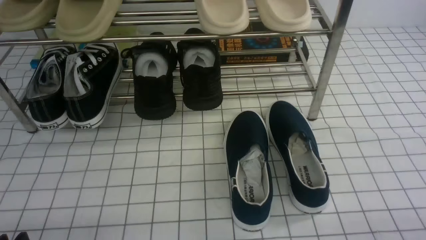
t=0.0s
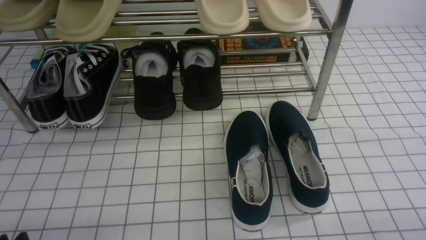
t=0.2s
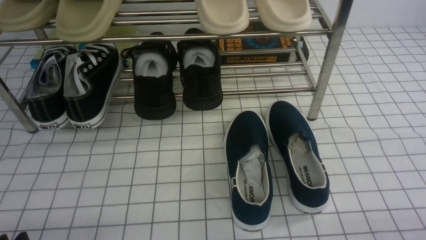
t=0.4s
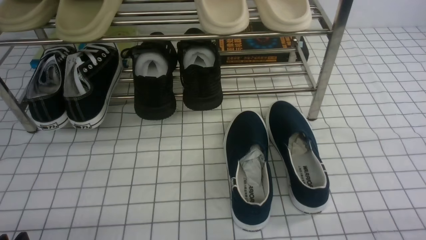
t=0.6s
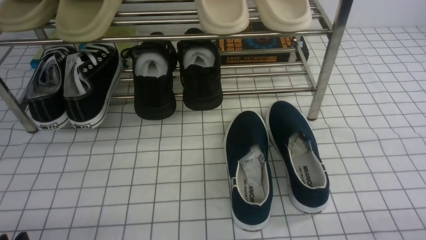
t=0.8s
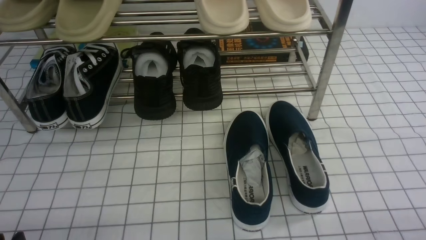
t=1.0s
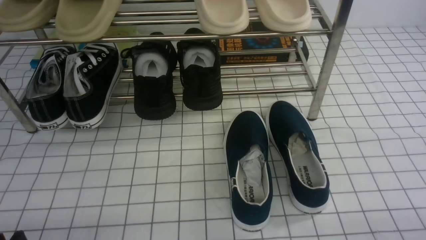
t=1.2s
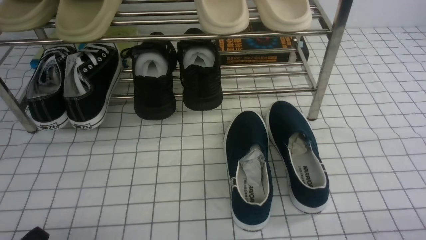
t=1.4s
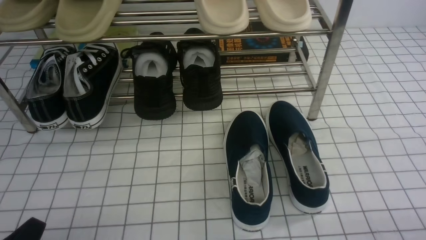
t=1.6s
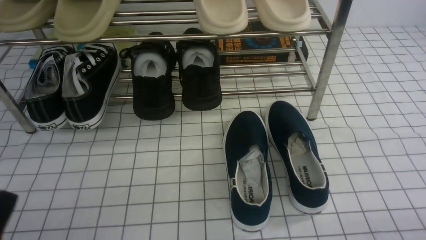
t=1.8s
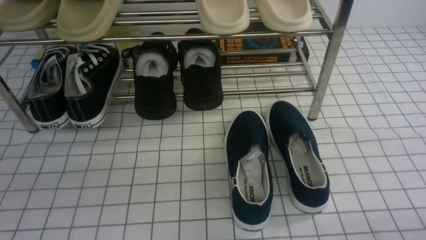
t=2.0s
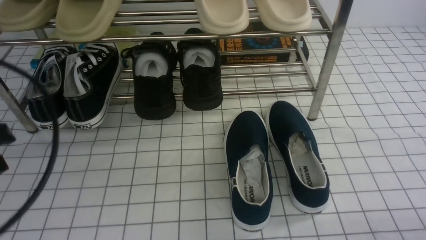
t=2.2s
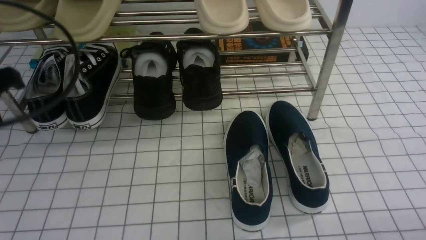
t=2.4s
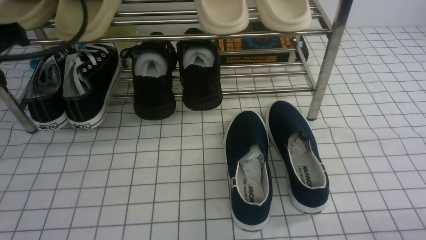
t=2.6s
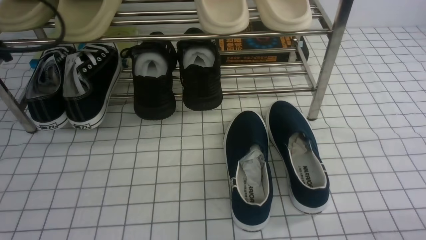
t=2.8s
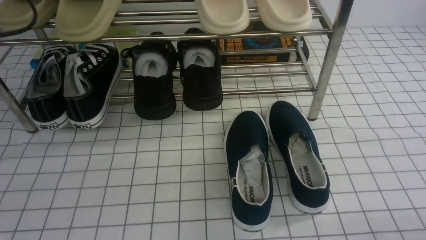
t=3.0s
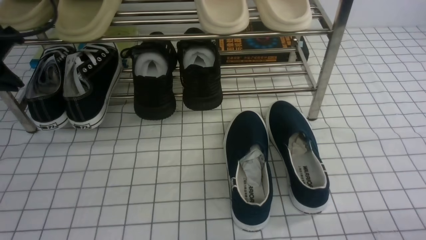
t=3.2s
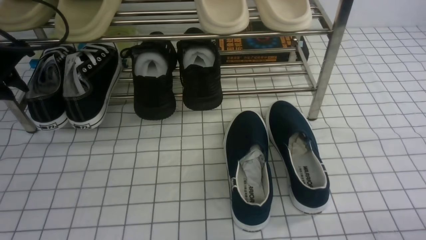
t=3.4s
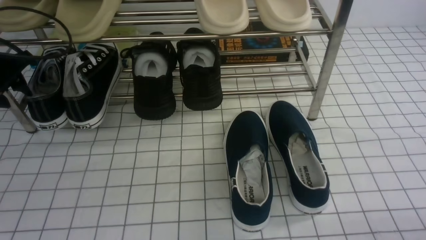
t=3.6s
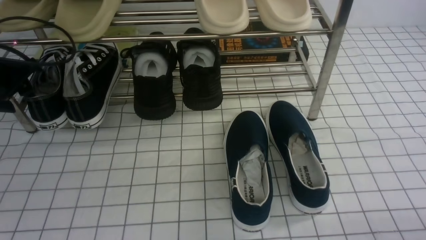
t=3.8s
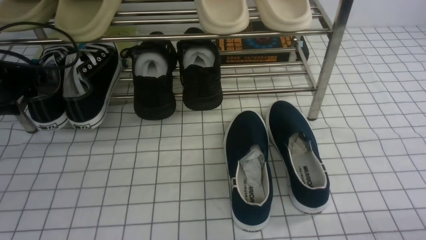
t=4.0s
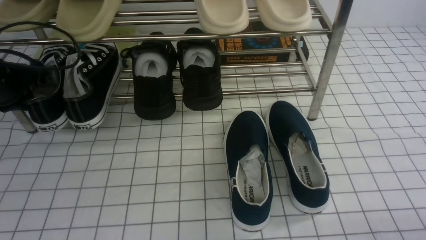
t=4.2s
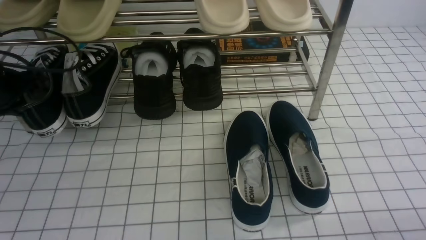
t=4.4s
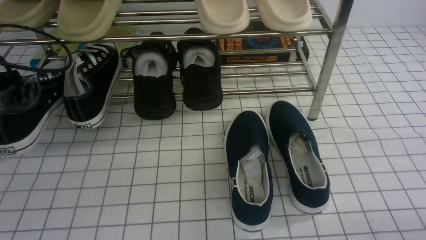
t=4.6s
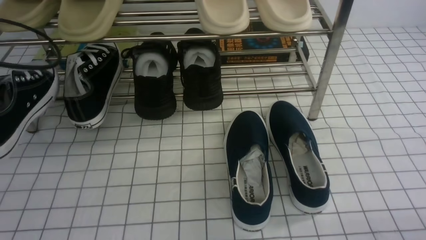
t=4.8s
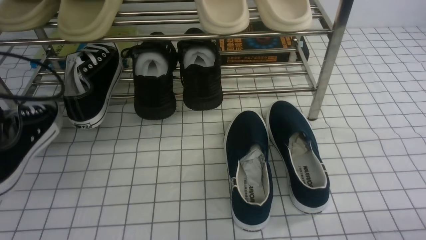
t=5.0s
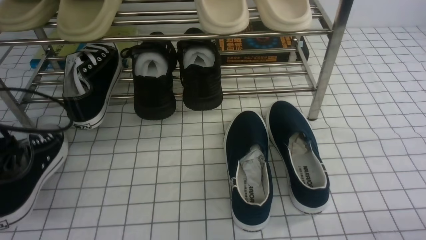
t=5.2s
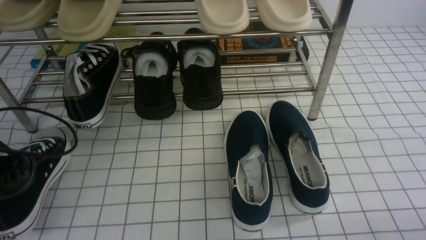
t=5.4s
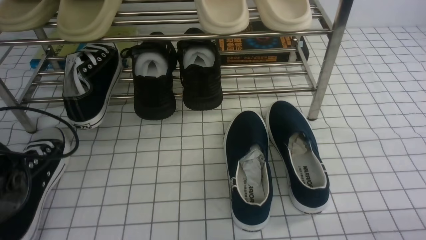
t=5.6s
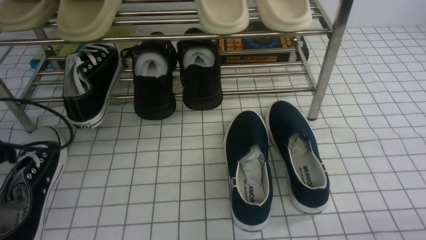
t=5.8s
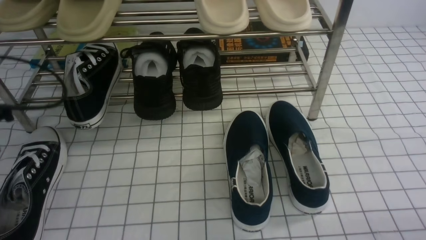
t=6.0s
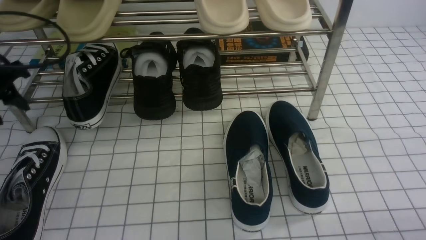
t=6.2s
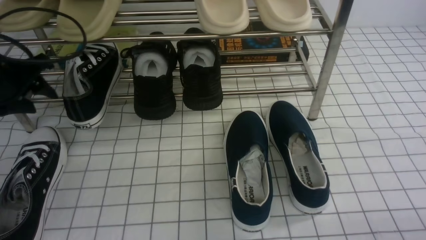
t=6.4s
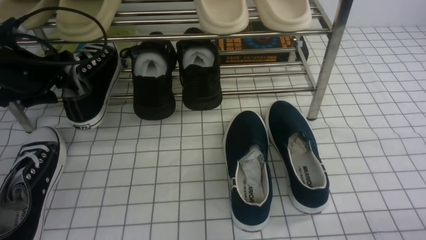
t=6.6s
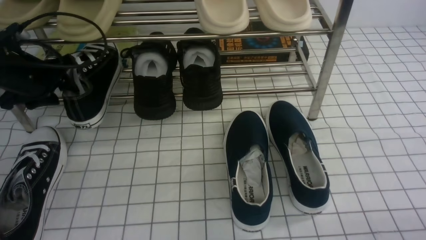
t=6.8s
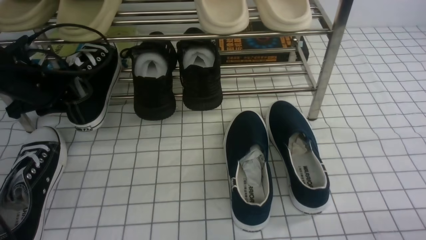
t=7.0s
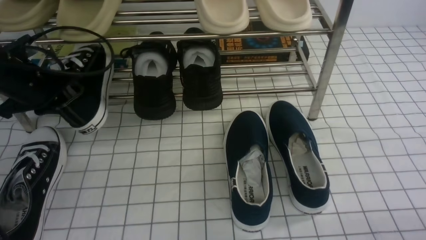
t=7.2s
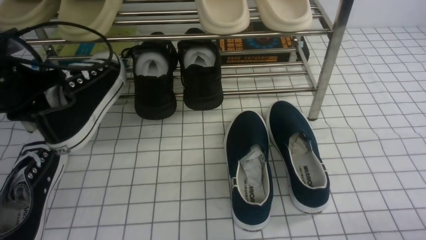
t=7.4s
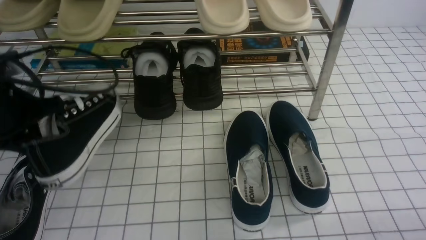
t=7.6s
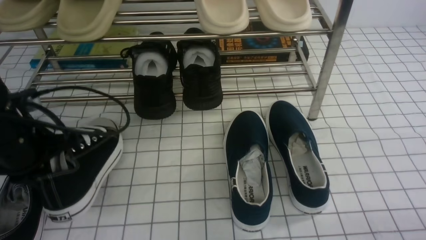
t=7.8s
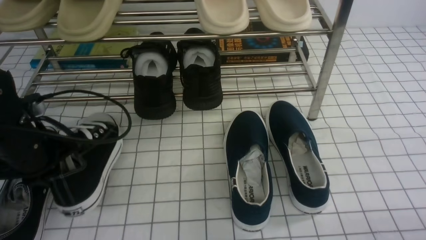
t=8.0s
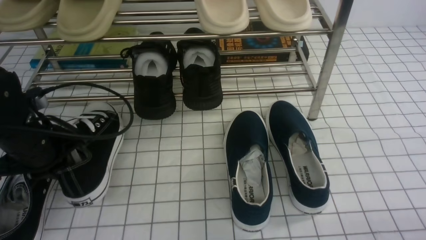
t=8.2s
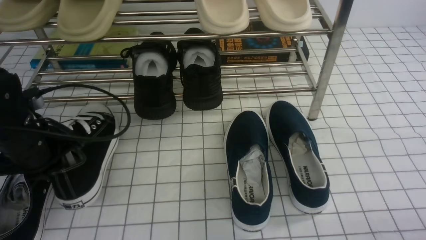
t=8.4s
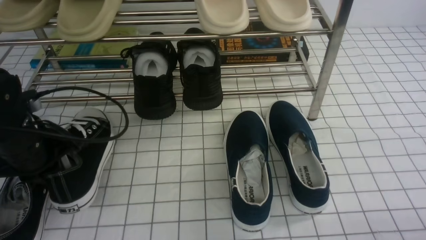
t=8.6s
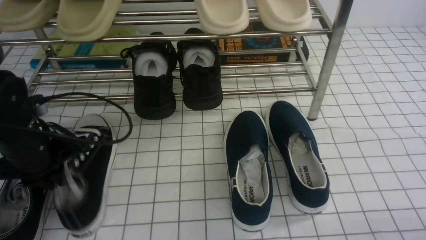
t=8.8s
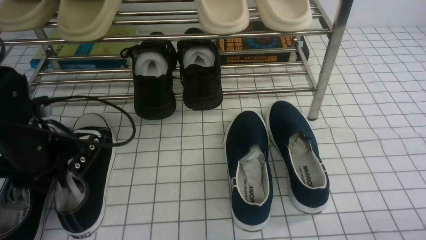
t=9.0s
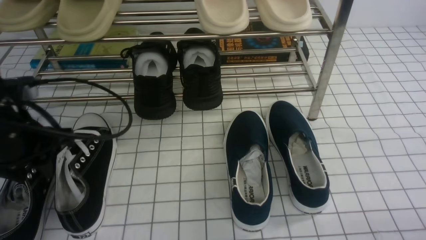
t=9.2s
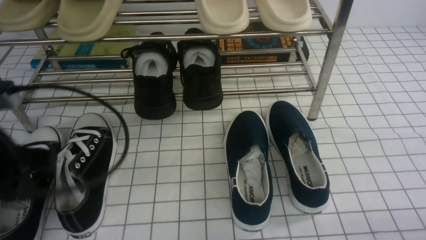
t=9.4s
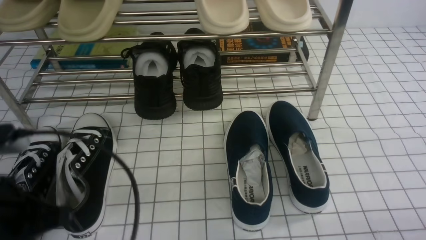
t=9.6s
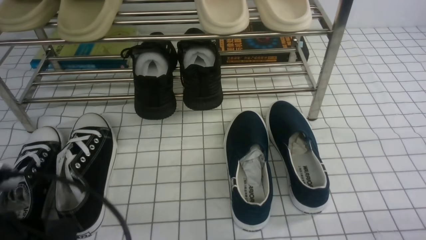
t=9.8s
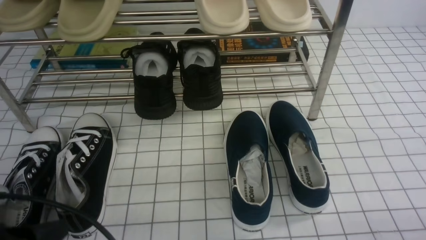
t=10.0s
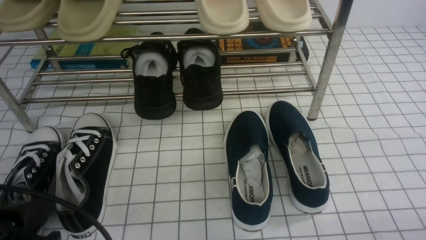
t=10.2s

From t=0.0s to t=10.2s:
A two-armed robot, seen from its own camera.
Step, from t=0.0s to t=4.2s: use the left arm to clamp a shoe on the left side of the shoe rack.
Step, from t=4.4s to t=5.6s: Use your left arm to remove the clamped shoe from the shoe rack and put it down.
Step, from t=6.0s to t=7.0s: use the left arm to clamp a shoe on the left side of the shoe rack.
Step, from t=7.2s to t=9.2s: Use your left arm to remove the clamped shoe from the shoe rack and put it down.
From t=1.4s to t=3.0s: The left gripper travels forward and upward by roughly 30 cm, and closes up.
From t=3.0s to t=4.4s: The left gripper is displaced downward by roughly 5 cm, and opens, then closes again.
From t=4.4s to t=5.8s: The left gripper travels backward by some 10 cm, and opens its fingers.
From t=5.8s to t=7.2s: The left gripper goes approximately 10 cm forward, and closes its fingers.
From t=7.2s to t=8.8s: The left gripper shifts roughly 10 cm backward.
From t=8.8s to t=10.2s: The left gripper shifts approximately 20 cm backward, and closes its fingers.

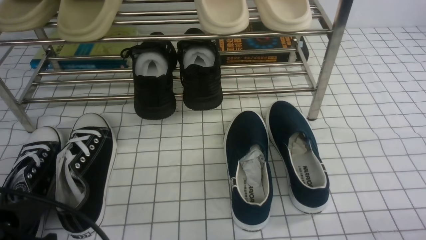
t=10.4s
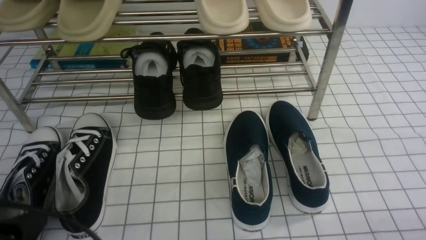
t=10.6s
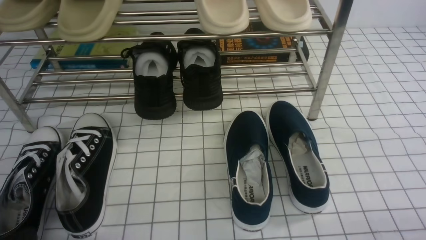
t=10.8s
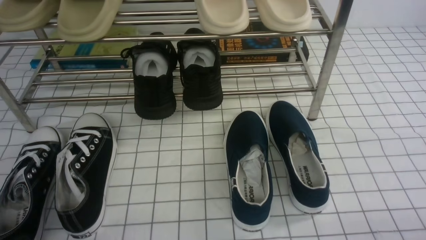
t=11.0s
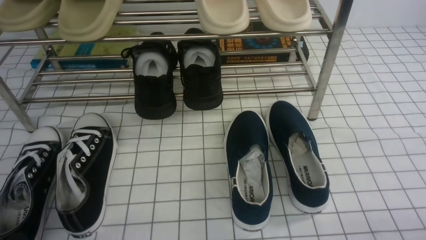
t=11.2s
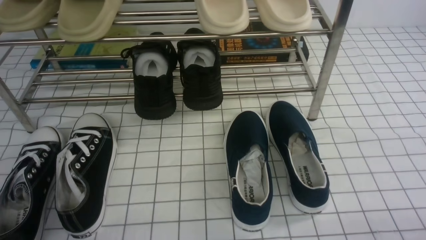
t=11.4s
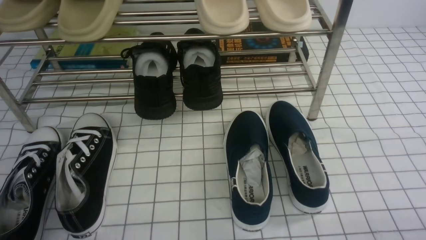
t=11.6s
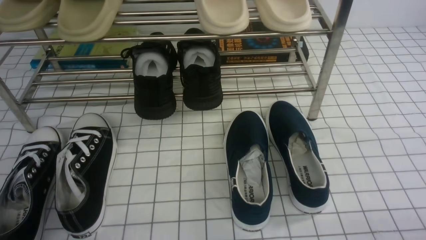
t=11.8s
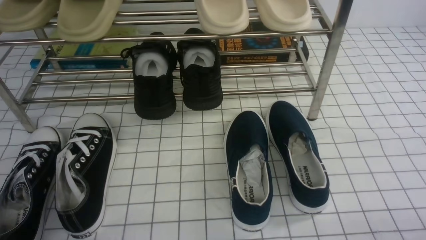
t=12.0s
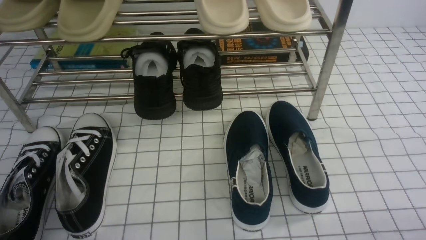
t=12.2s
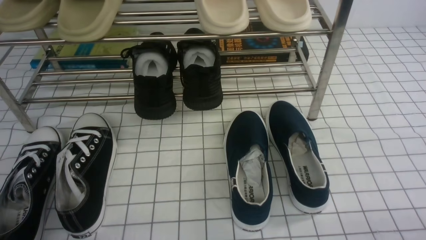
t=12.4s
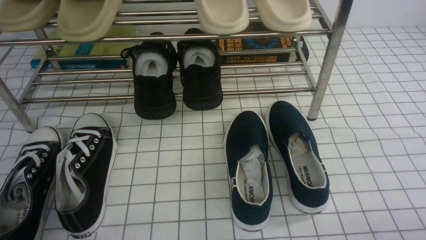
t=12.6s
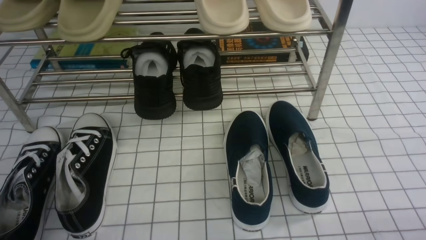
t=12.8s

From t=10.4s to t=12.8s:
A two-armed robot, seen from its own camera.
From t=10.4s to t=11.6s: The left gripper heads downward, covering about 5 cm.
From t=11.6s to t=12.8s: Both grippers stay about where they are.

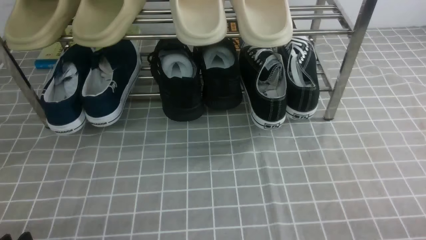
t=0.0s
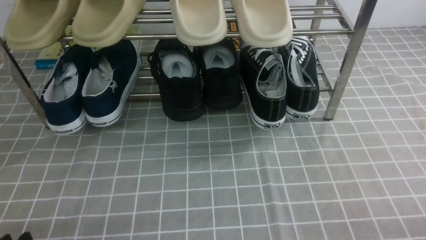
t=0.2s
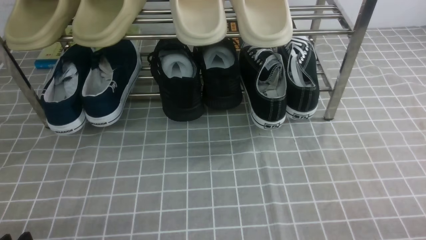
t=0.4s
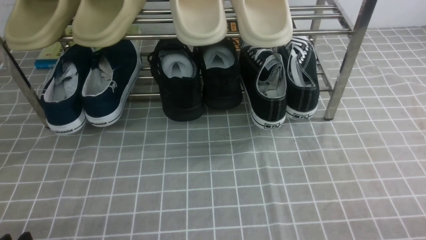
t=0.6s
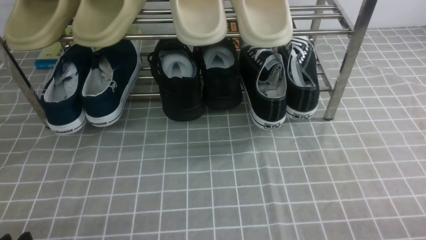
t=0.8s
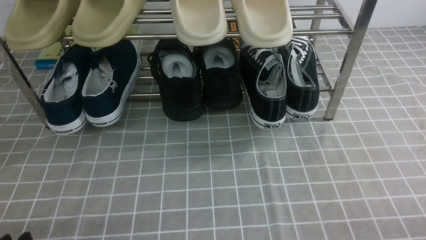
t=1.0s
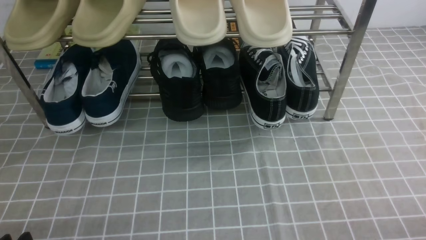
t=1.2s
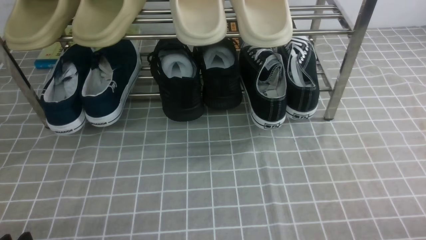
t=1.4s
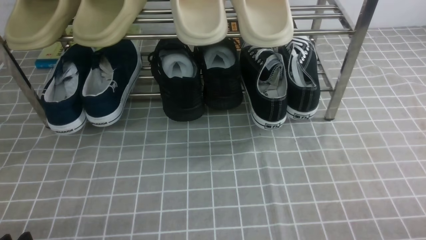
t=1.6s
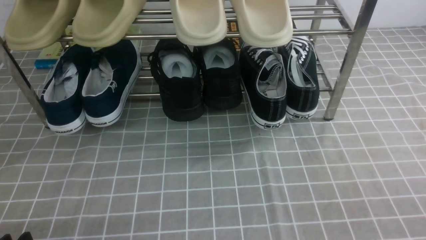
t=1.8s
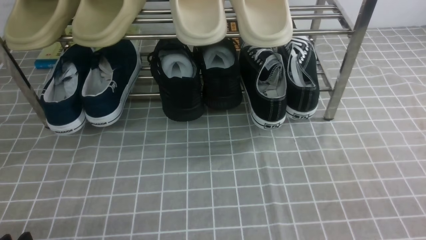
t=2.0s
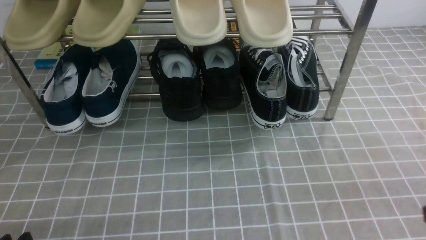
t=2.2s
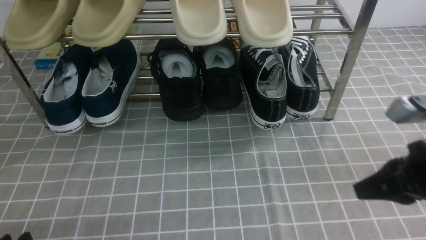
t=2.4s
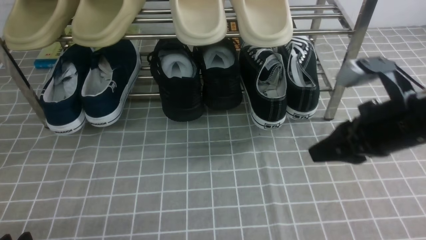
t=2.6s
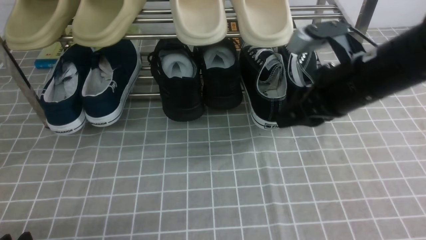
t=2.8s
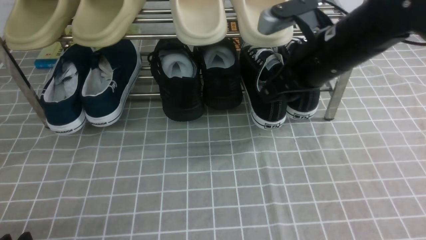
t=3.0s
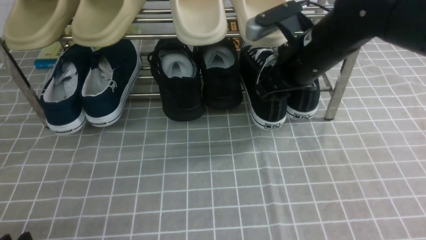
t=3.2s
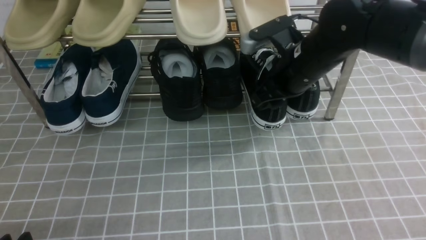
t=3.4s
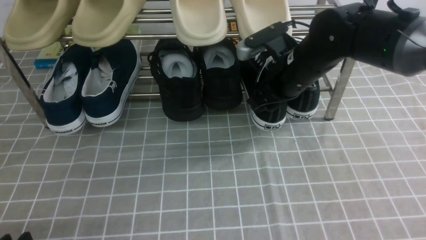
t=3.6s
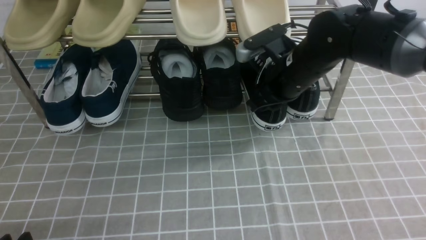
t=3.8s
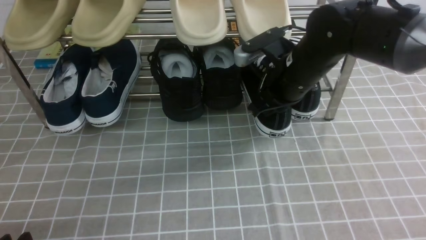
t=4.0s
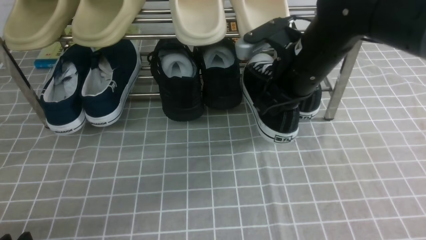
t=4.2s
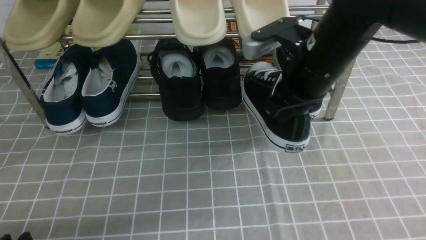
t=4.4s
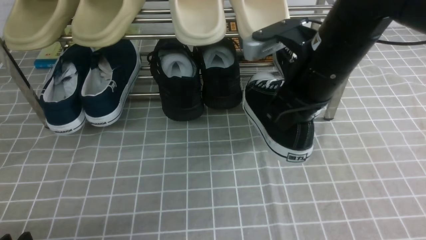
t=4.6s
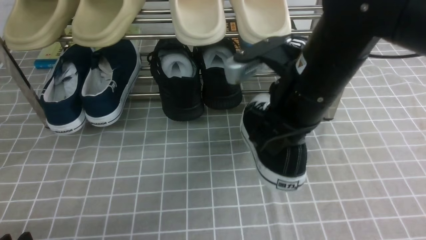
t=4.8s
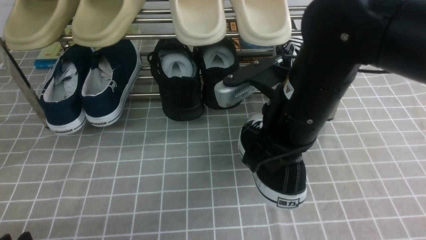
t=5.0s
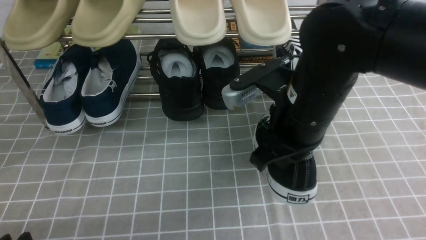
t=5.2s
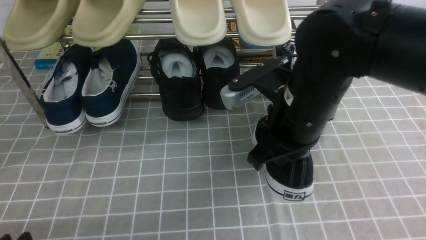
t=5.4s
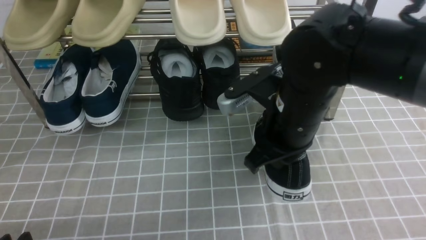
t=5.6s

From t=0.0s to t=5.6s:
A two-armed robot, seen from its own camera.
Step, from t=0.0s to t=4.2s: use the right arm to clamp a shoe on the right side of the shoe rack.
From t=1.4s to t=2.8s: The right gripper is displaced forward, to the left and upward by roughly 30 cm, and closes and opens again.
From t=2.8s to t=4.2s: The right gripper closes up.
From t=4.2s to t=5.6s: The right gripper heads backward, covering roughly 5 cm.
